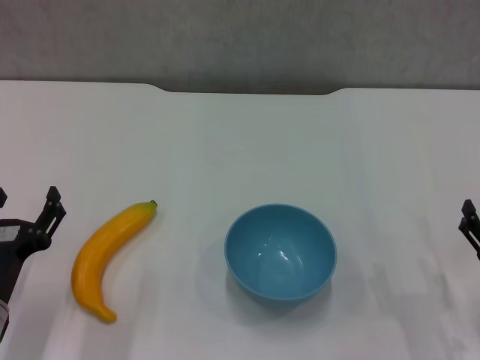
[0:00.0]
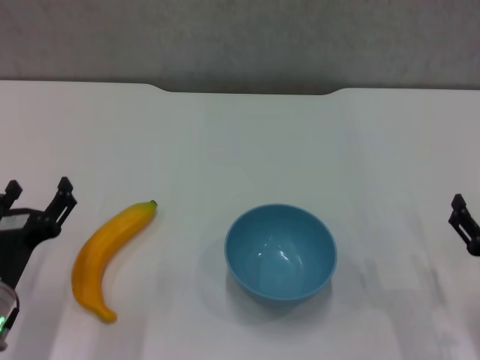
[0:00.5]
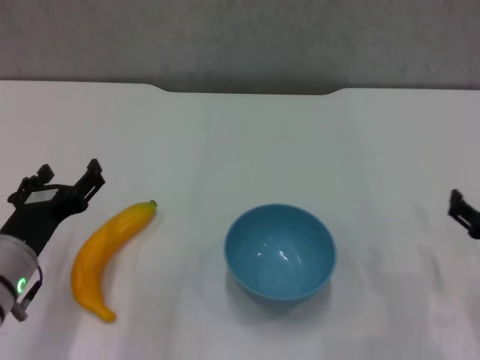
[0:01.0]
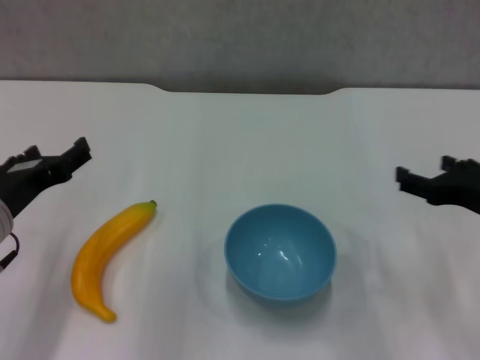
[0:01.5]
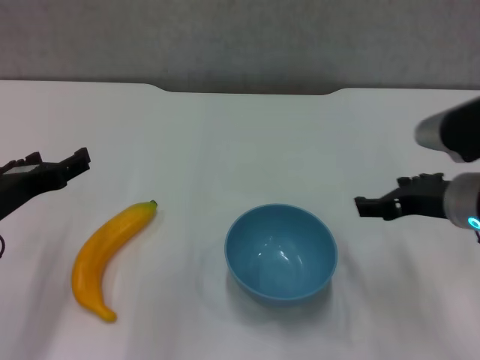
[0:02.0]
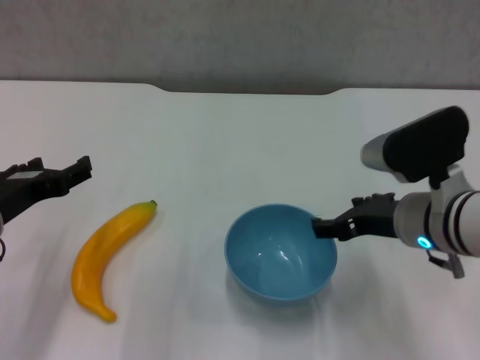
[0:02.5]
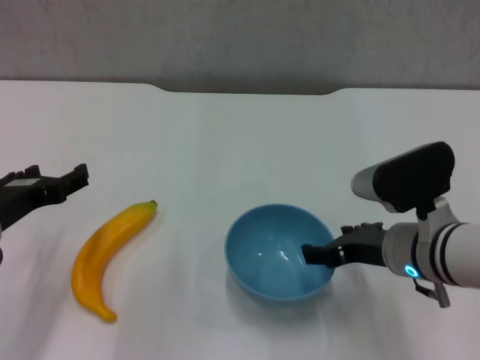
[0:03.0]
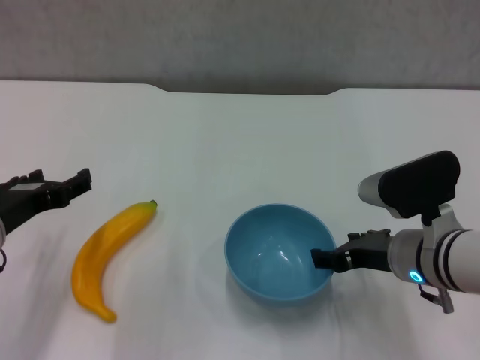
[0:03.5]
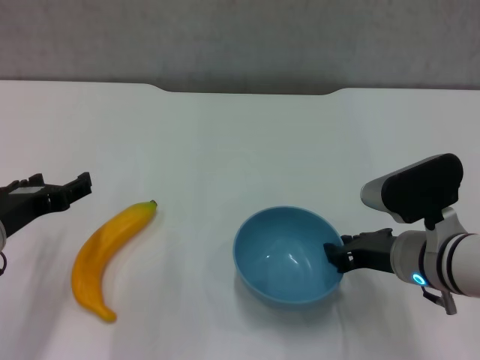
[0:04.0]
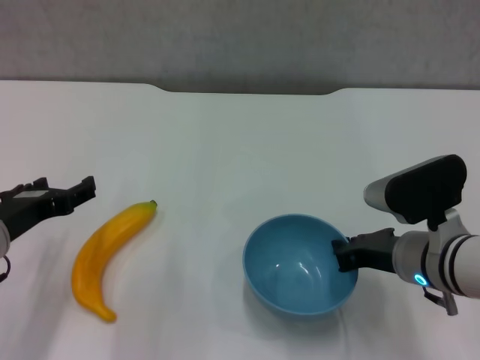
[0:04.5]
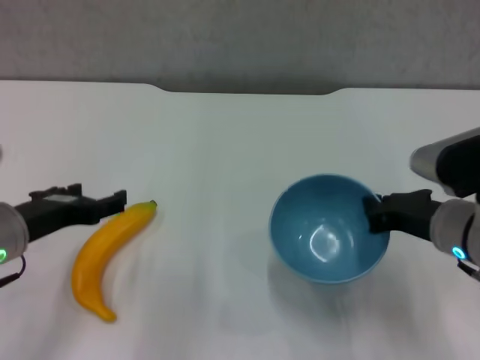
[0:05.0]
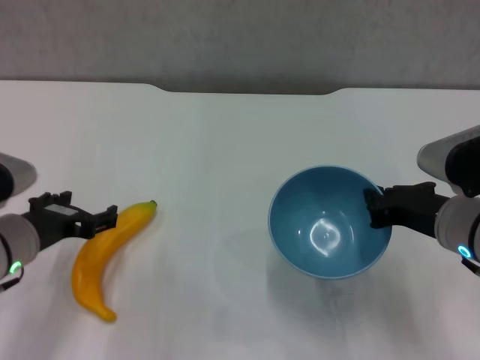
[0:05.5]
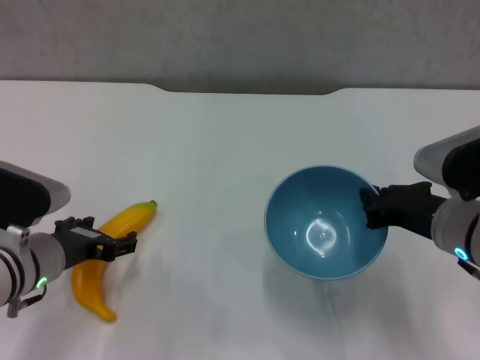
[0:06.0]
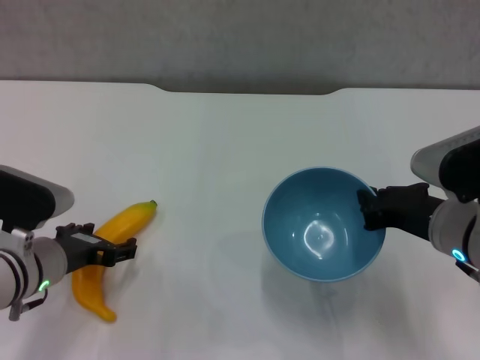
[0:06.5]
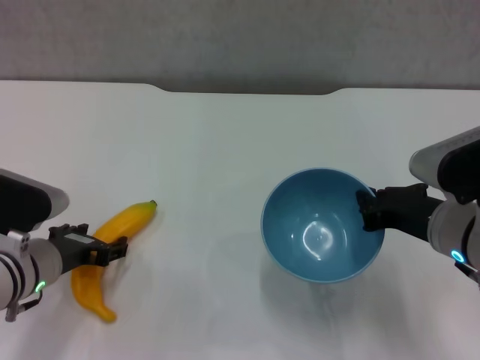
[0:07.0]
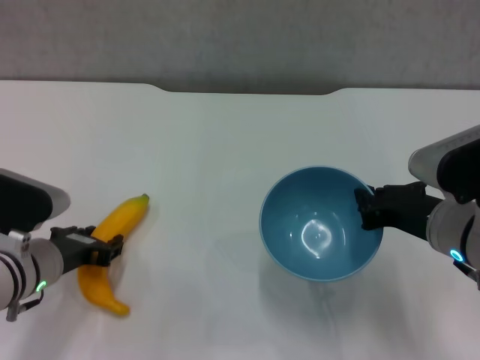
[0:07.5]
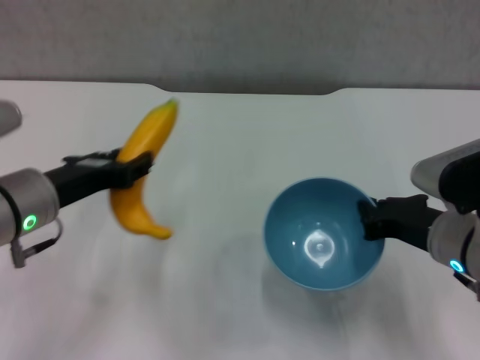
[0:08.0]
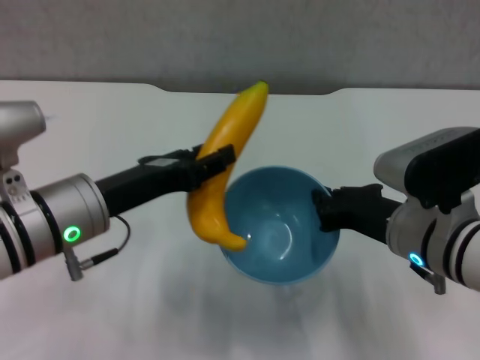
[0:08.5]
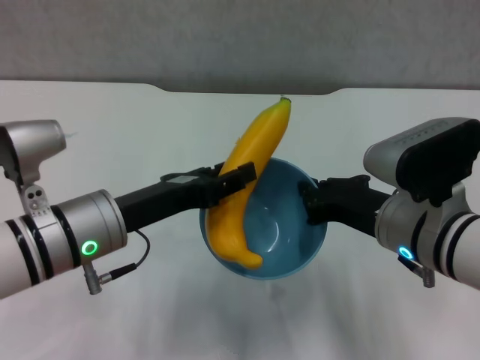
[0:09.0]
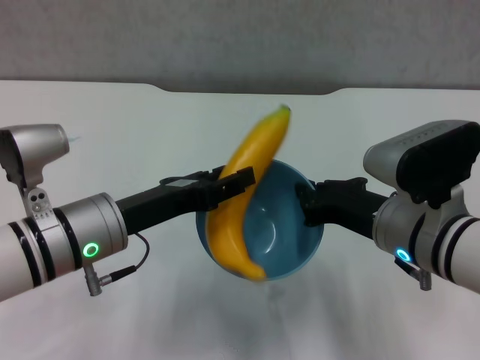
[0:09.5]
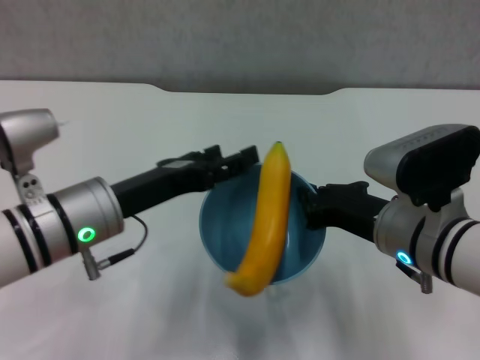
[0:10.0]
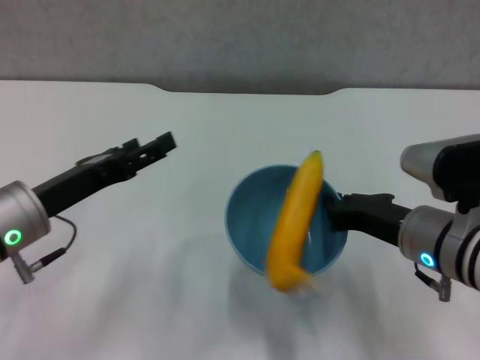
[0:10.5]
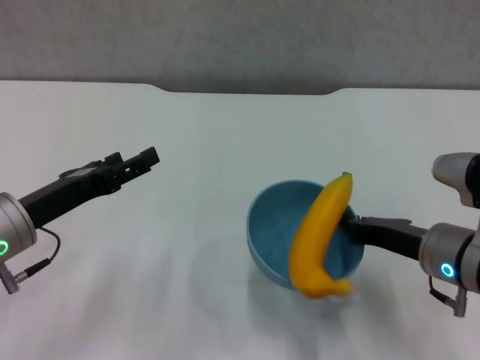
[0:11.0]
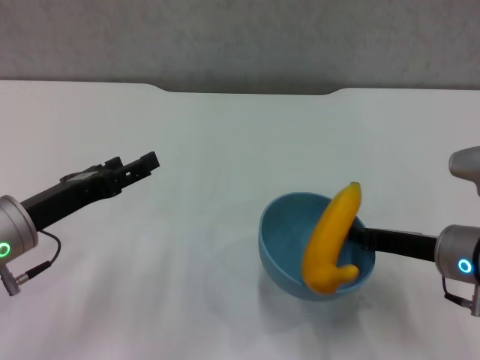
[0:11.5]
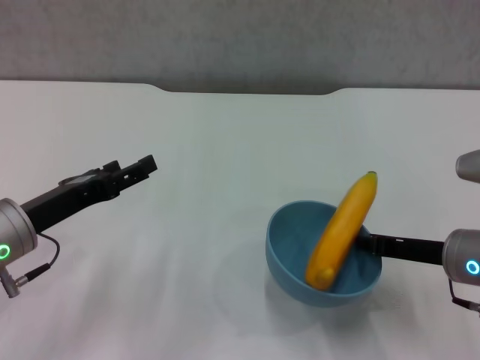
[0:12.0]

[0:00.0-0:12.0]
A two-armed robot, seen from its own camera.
Step, 0:00.0 to 0:04.0: Grasp the blue bowl with right gripper.
Step, 0:05.5 to 0:07.0: Grasp the banana with left gripper.
Step, 0:07.5 to 0:09.5: Place the banana in the blue bowl with left gripper.
0:00.0 to 0:02.0: The right gripper heads upward, forward and to the left, covering some 20 cm. Meanwhile the left gripper moves upward and forward, approximately 10 cm.
0:02.0 to 0:04.0: The right gripper moves downward, about 5 cm, and closes.
0:04.0 to 0:06.0: The right gripper ends up roughly 5 cm from where it was, and closes its fingers, while the left gripper heads downward, covering roughly 5 cm.
0:06.0 to 0:08.0: The left gripper is displaced upward by roughly 10 cm, and closes its fingers.
0:08.0 to 0:10.0: The left gripper goes some 5 cm to the right, and opens.
0:10.0 to 0:12.0: The right gripper is displaced to the right by roughly 10 cm. The left gripper shifts some 10 cm to the left.

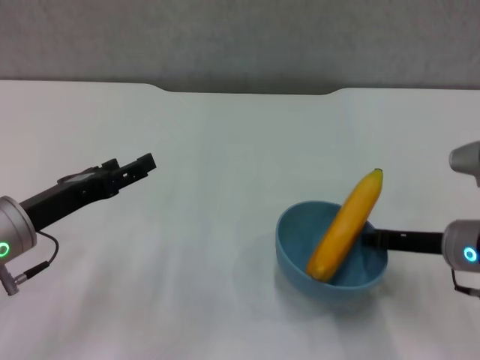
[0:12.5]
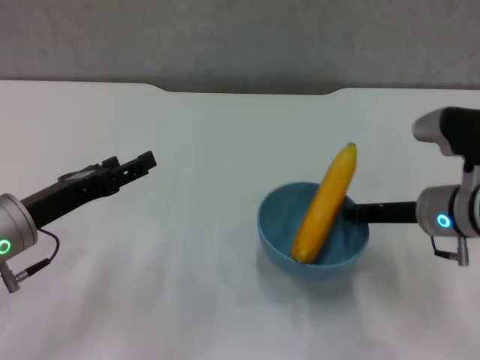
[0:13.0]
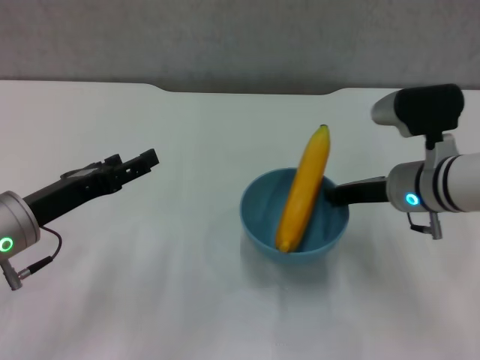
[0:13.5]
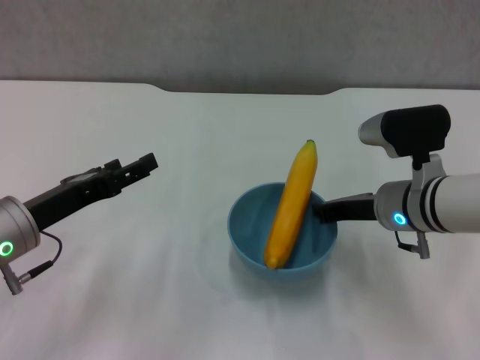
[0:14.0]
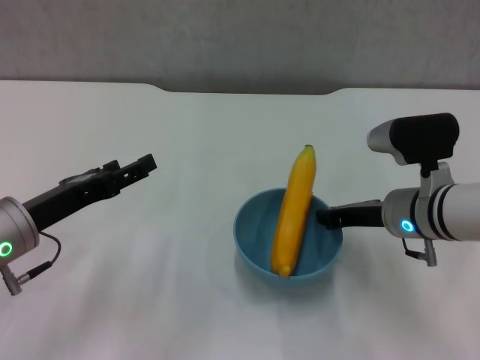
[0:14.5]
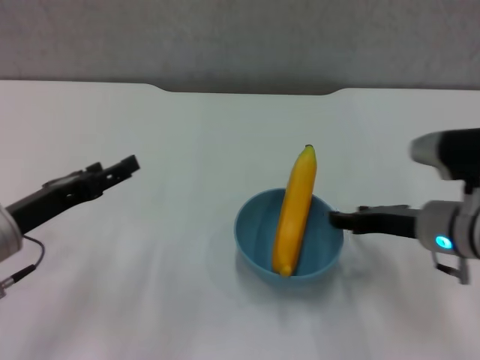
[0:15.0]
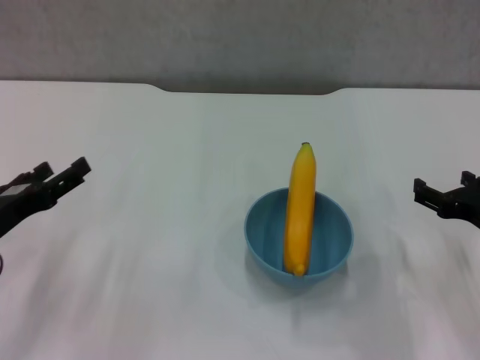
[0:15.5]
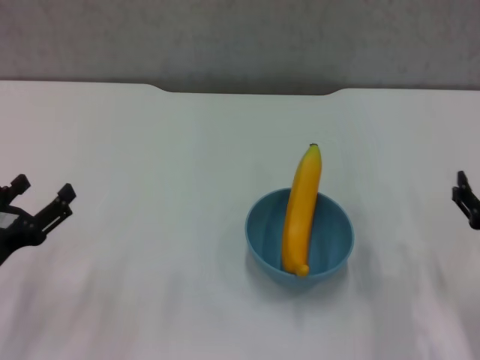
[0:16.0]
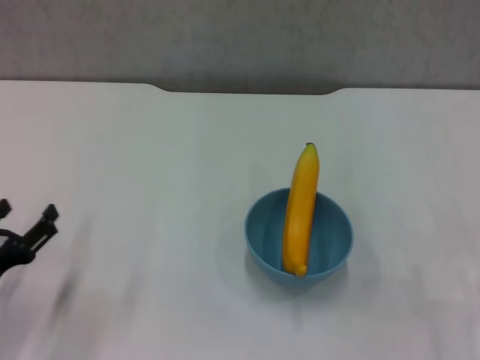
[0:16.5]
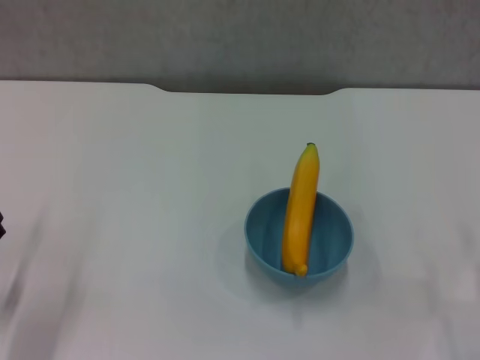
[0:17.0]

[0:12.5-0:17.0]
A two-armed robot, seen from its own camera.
Step, 0:12.5 to 0:14.5: Place the bowl on the table with right gripper.
0:12.5 to 0:14.5: The right gripper shifts roughly 5 cm to the left.
0:14.5 to 0:17.0: The left gripper heads downward, to the left and backward, covering approximately 15 cm. The right gripper goes roughly 25 cm backward, to the right and downward, and opens up.
